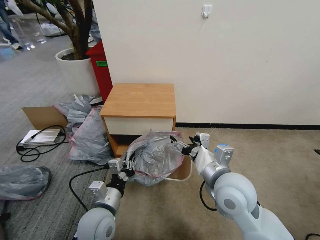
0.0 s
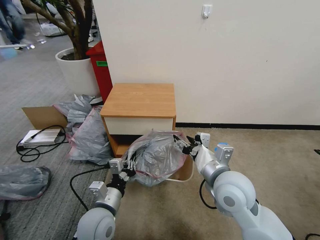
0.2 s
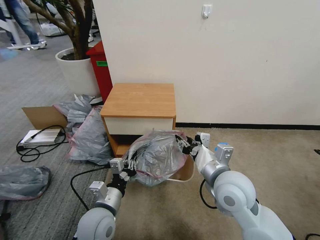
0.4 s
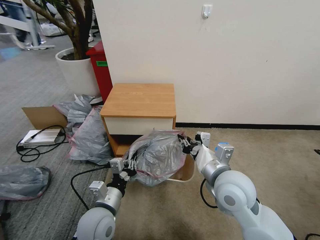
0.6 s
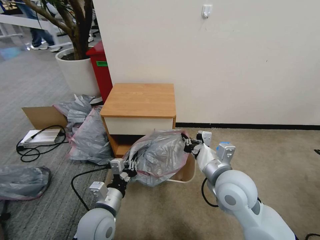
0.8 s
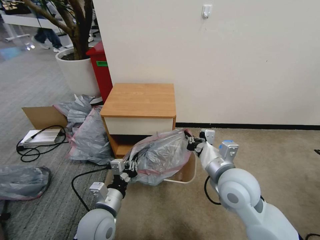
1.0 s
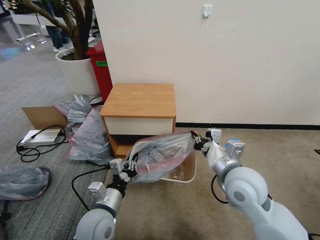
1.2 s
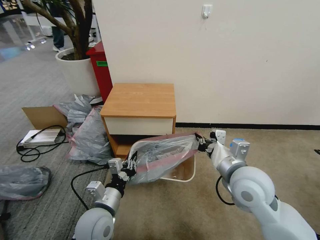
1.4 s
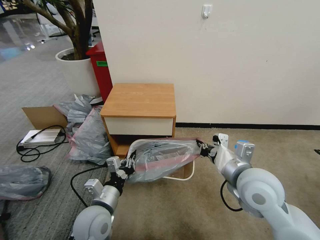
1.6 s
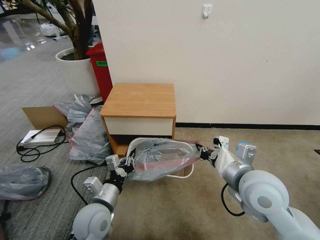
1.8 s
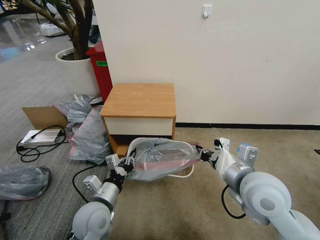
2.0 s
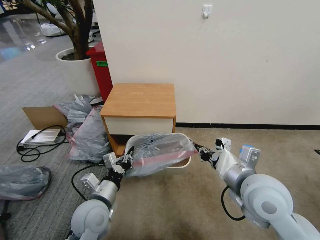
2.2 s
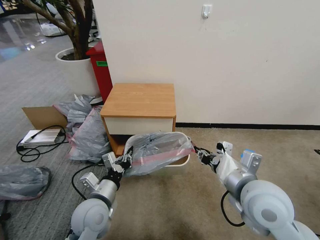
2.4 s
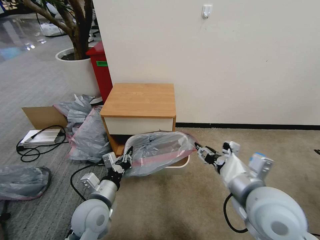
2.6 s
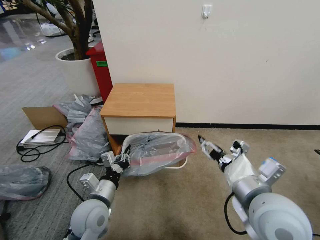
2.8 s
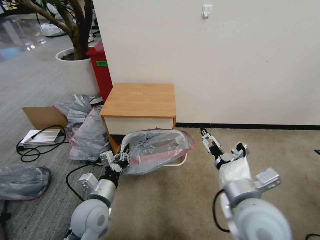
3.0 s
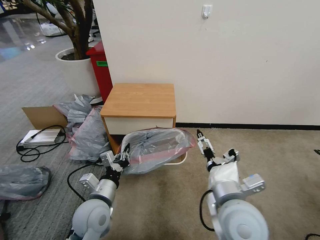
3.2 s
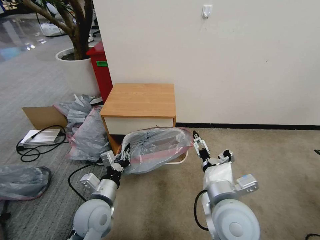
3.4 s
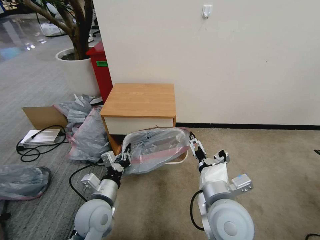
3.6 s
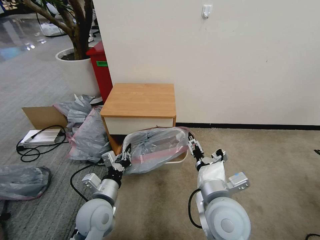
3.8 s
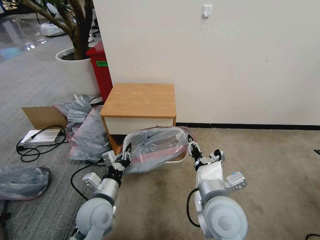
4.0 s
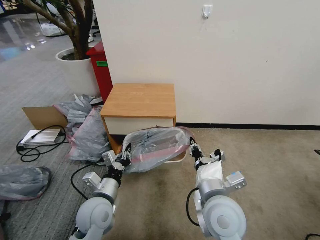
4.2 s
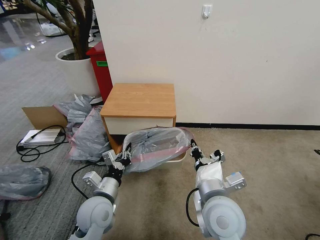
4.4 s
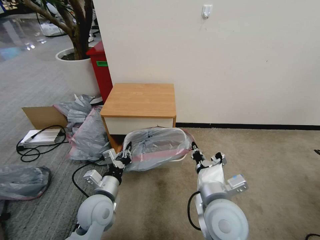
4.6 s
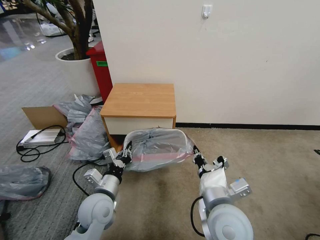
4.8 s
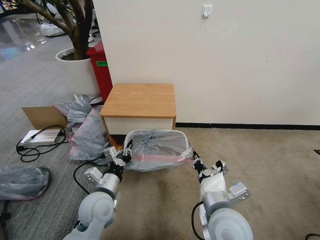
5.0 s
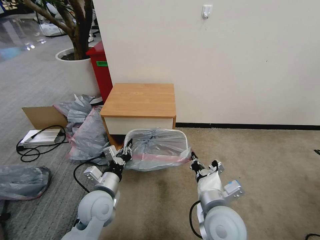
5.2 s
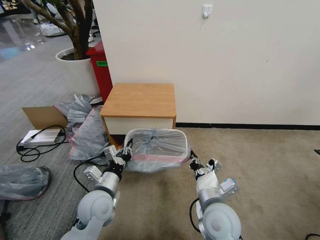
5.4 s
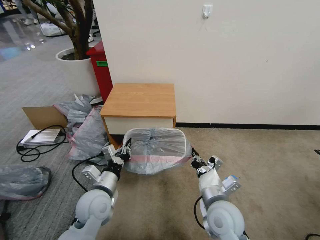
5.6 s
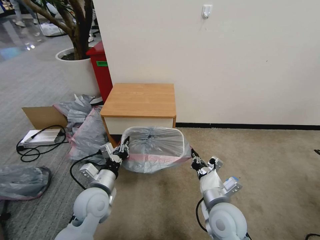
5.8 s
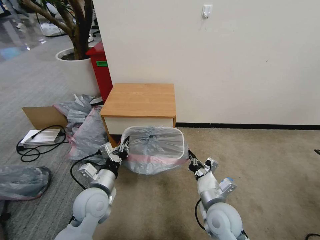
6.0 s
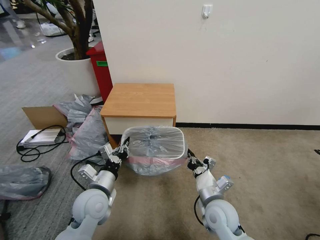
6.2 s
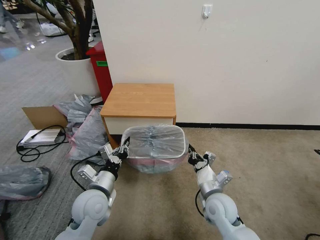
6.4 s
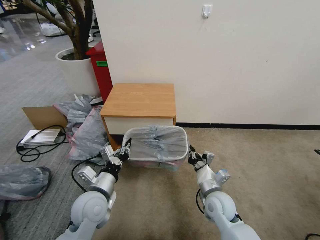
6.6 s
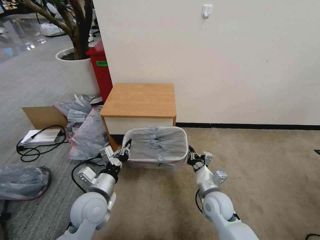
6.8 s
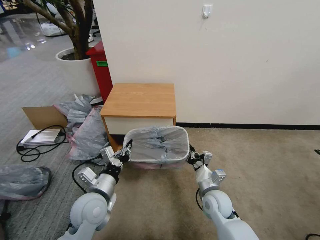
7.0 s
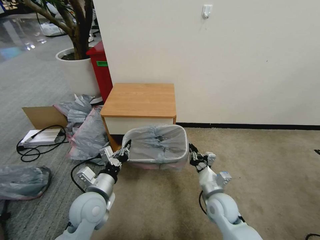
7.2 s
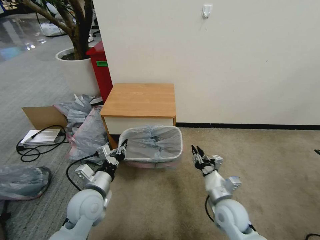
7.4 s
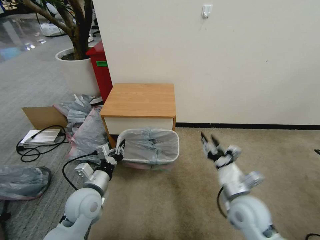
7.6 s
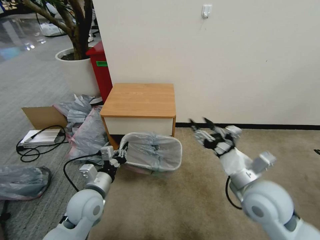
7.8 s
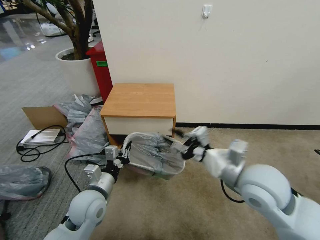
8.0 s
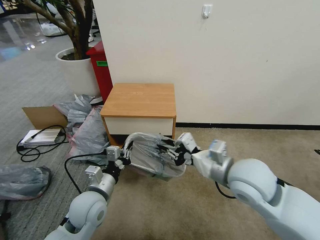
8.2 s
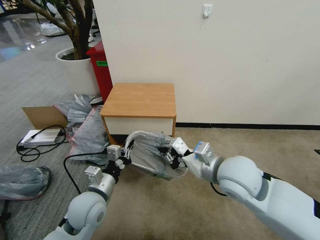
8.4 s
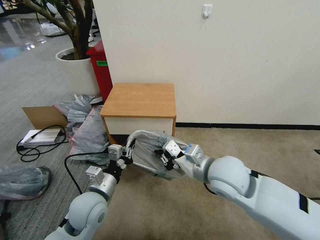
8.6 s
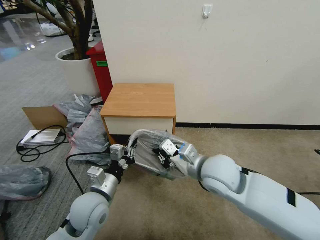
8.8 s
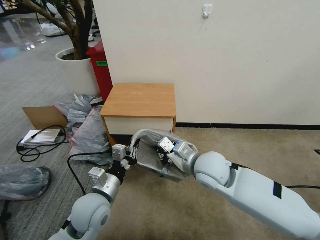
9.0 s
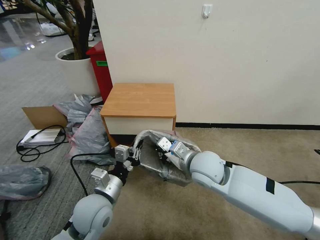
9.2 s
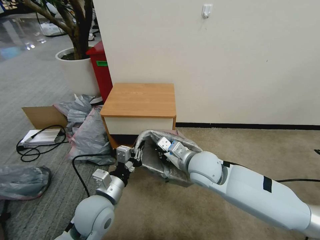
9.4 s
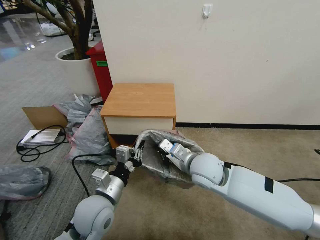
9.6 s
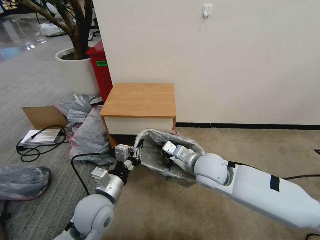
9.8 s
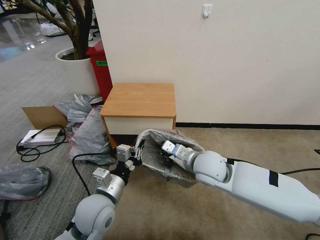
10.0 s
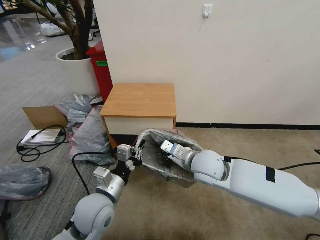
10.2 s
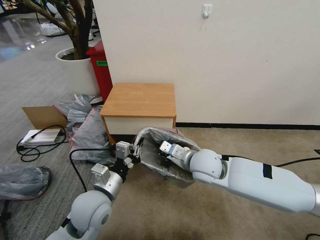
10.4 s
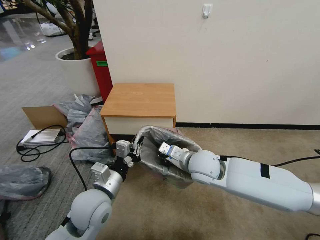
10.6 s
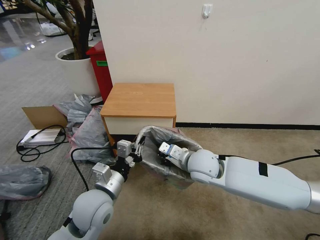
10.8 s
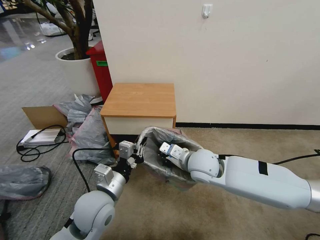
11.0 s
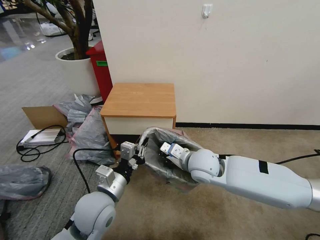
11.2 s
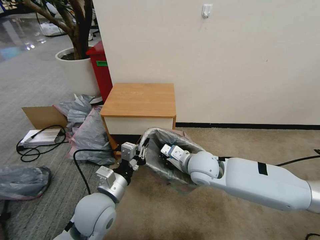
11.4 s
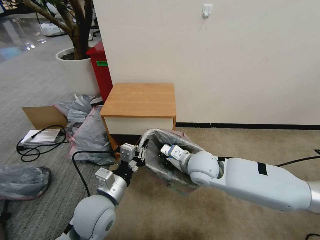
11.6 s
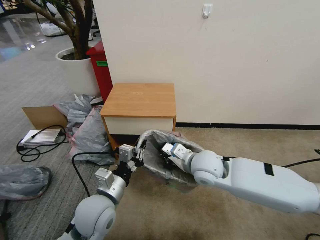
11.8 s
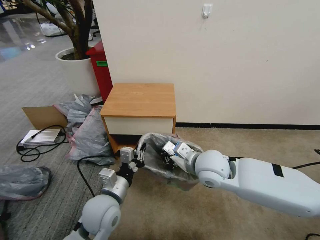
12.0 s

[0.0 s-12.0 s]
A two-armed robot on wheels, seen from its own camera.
Task of the whole recording: Pick up the garbage bag from the table and place it over the trash can.
0.0 to 1.6 s: The right gripper shifts some 5 cm to the right, and closes up.
1.6 to 3.0 s: The right gripper heads backward, covering about 5 cm, and opens.
3.0 to 4.4 s: The right gripper goes some 5 cm to the left, and closes its fingers.
4.4 to 6.0 s: The right gripper heads downward, covering some 10 cm.
6.0 to 7.6 s: The right gripper heads to the right, covering roughly 5 cm, and opens up.
7.6 to 9.0 s: The right gripper is displaced to the left, upward and forward by approximately 15 cm, and closes up. The left gripper changes place by approximately 5 cm.
9.0 to 12.0 s: There are only small adjustments of the grippers.

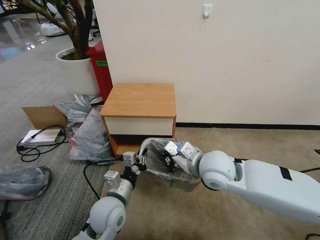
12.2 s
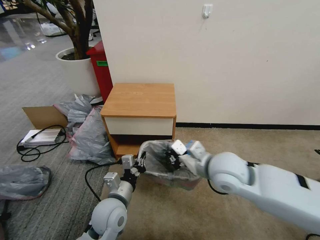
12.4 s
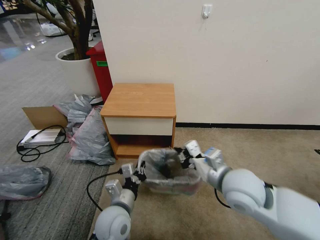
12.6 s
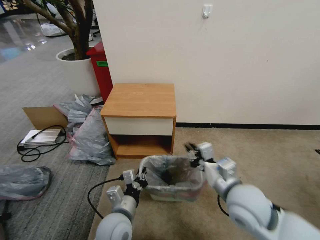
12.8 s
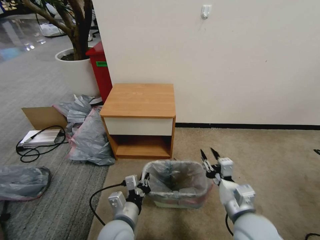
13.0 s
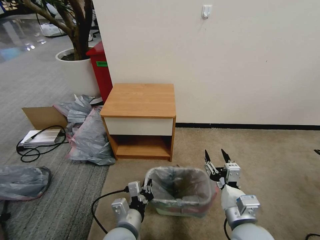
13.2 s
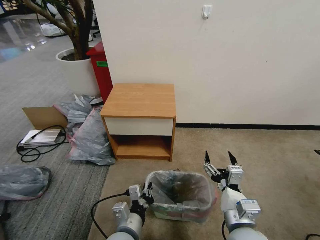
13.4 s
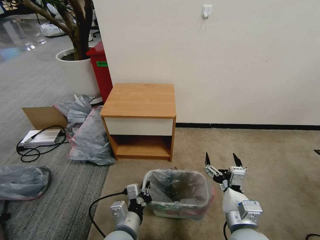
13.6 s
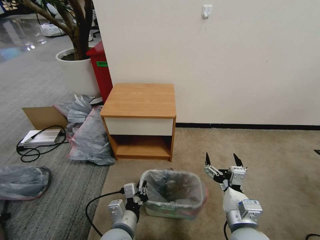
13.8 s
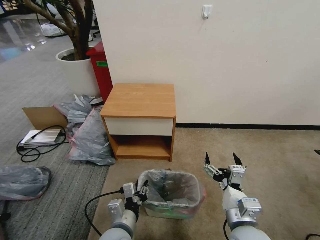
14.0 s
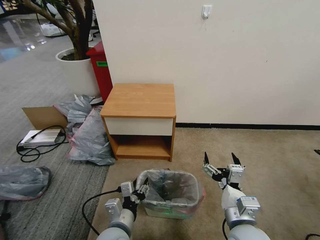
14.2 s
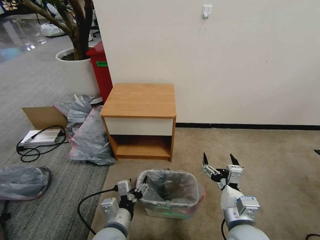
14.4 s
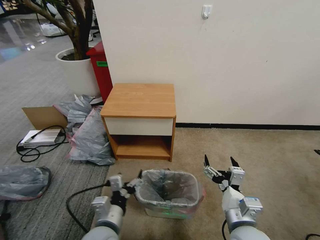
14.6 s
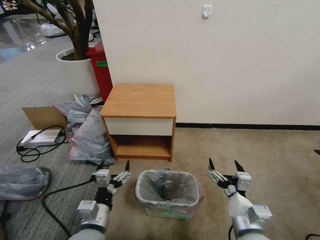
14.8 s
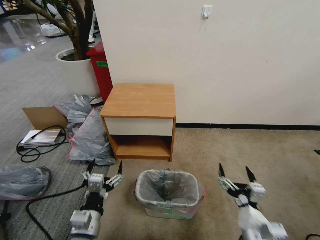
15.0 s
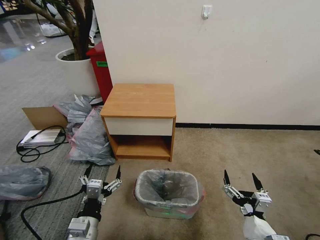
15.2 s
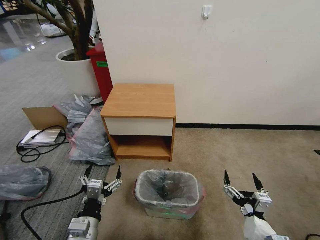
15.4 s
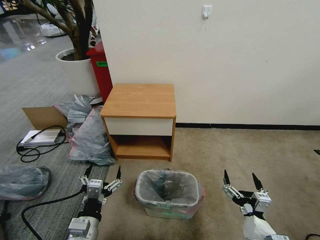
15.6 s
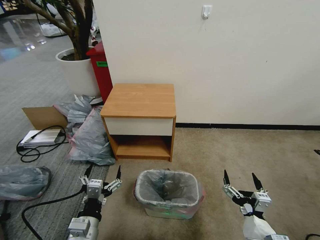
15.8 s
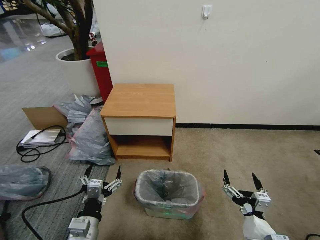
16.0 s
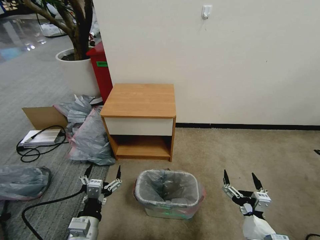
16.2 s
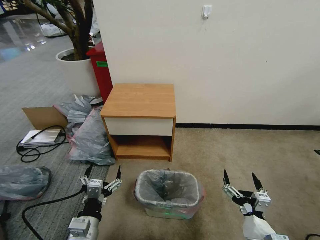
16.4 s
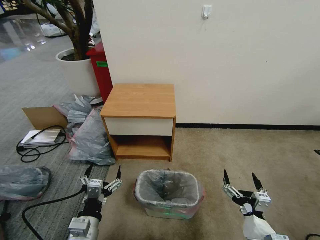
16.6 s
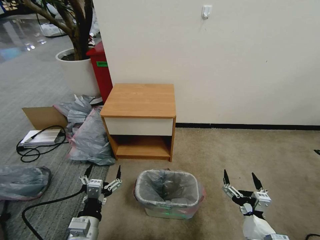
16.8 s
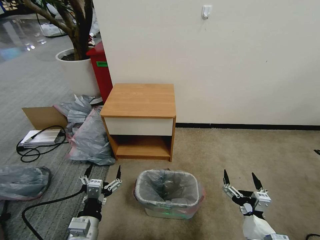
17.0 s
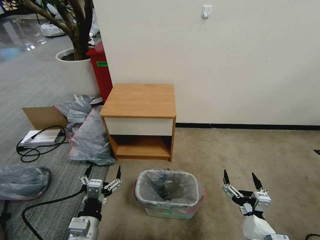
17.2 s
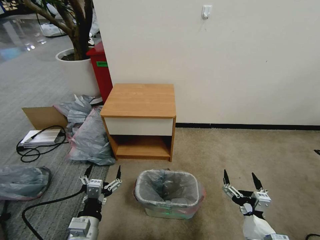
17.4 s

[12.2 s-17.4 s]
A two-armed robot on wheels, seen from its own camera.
Task of the whole recording: Pick up the garbage bag from the table and place it over the trash can.
12.2 to 14.0 s: The right gripper moves backward and downward, roughly 20 cm, and opens its fingers, while the left gripper is displaced backward by roughly 5 cm.
14.0 to 15.6 s: The right gripper moves backward, downward and to the right, roughly 10 cm. Meanwhile the left gripper is displaced to the left by roughly 10 cm, and opens up.
15.6 to 17.4 s: Both grippers stay put.

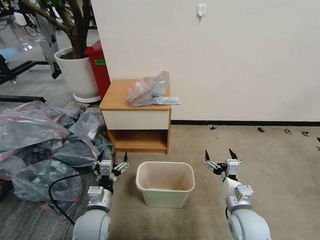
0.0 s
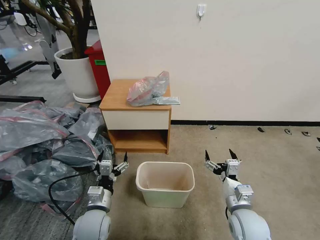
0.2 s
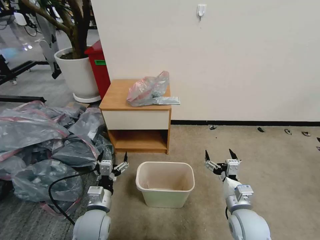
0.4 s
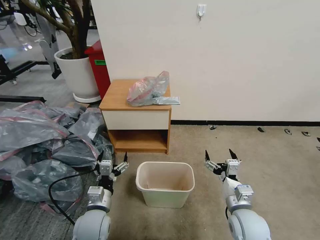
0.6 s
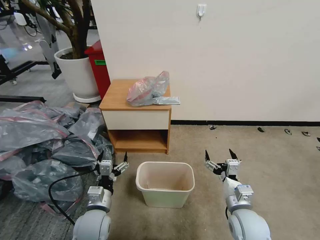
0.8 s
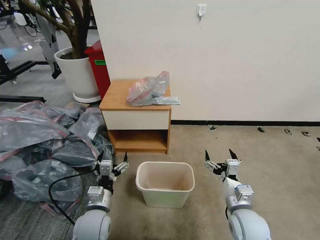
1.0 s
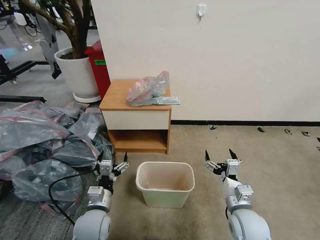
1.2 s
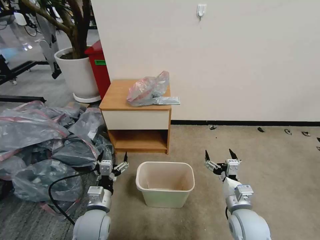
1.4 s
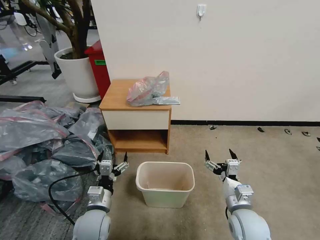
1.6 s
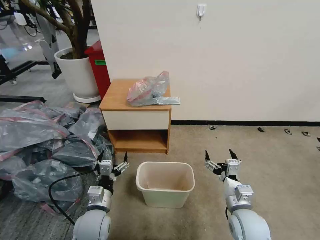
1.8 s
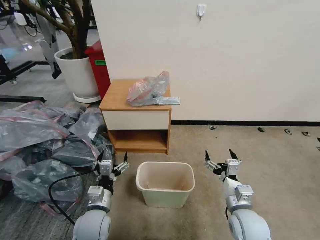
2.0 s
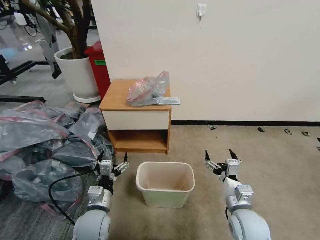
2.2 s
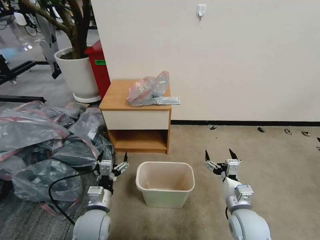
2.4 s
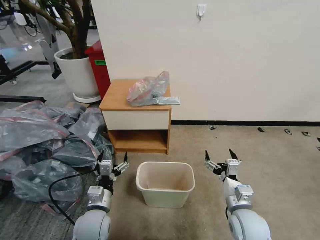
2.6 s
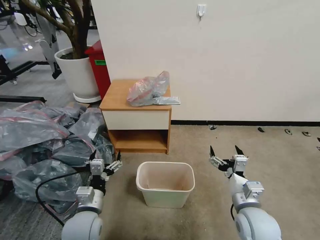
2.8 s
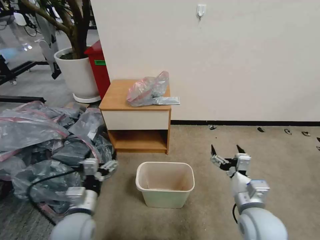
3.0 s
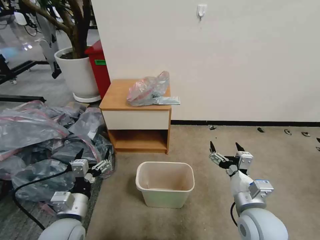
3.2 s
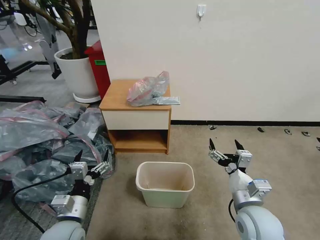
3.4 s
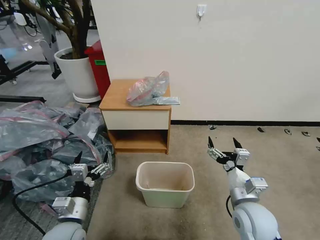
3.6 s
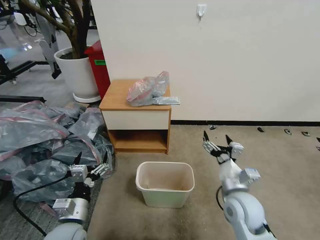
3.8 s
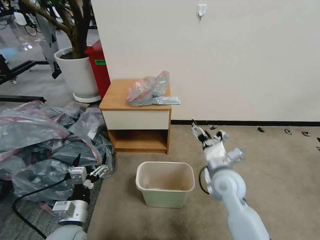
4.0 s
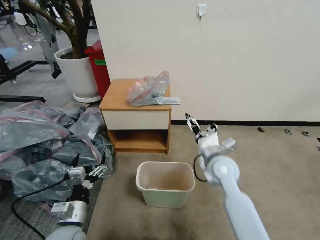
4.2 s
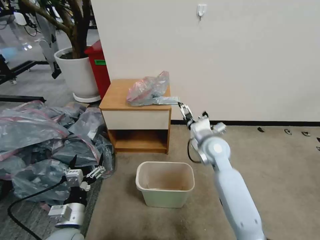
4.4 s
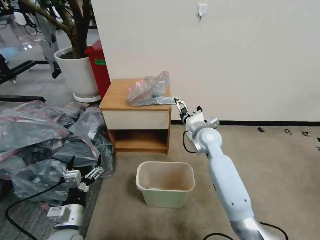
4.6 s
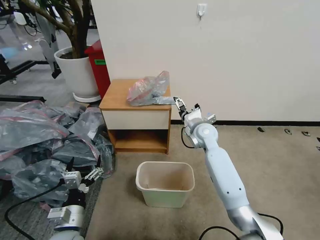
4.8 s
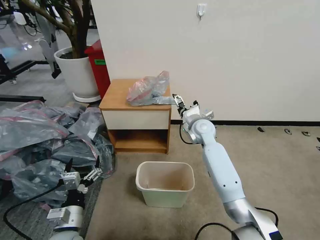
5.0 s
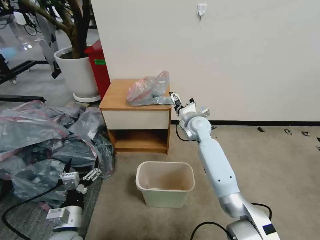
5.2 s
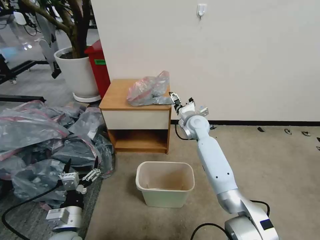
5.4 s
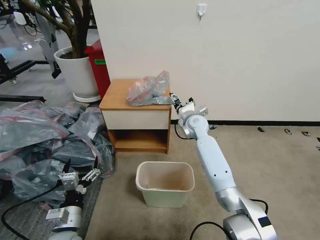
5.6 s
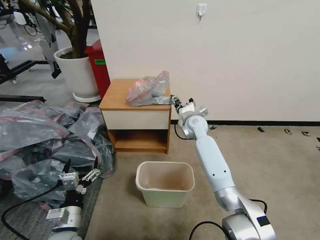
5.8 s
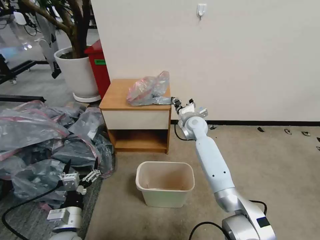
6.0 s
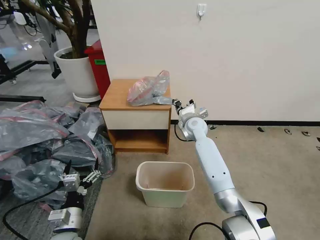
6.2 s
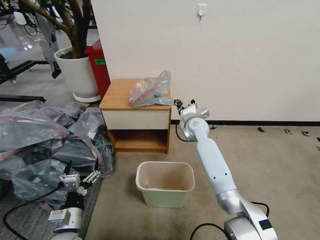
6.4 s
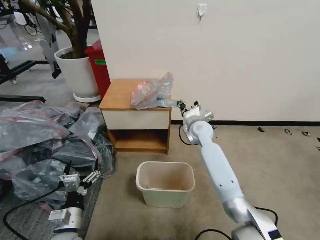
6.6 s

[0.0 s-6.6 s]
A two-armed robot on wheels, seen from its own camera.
Task of the whole recording: Pick up the garbage bag from the table and place it over the trash can.
1.6 to 3.2 s: Both grippers move upward, some 5 cm.
3.2 to 5.0 s: The right gripper is displaced forward by some 30 cm; the left gripper travels downward by roughly 5 cm.
5.0 to 6.6 s: The right gripper closes.
